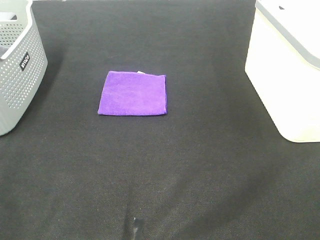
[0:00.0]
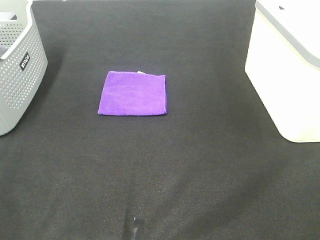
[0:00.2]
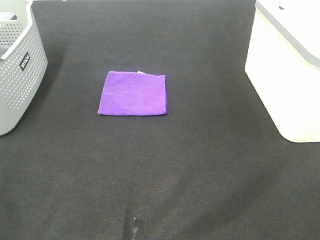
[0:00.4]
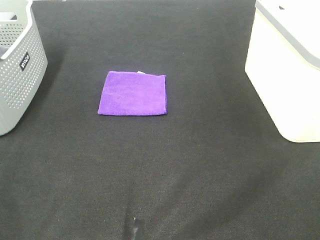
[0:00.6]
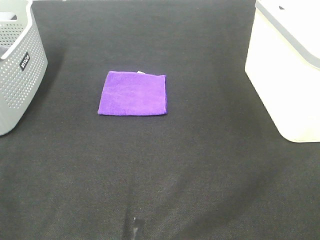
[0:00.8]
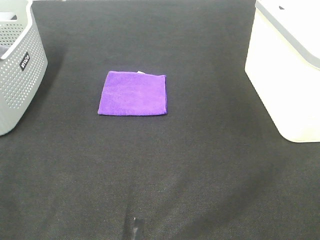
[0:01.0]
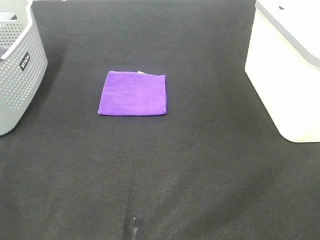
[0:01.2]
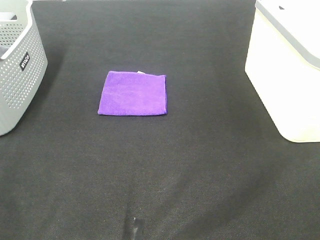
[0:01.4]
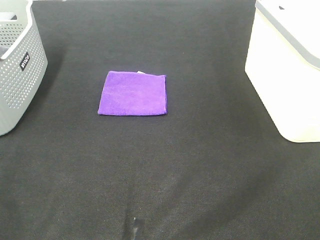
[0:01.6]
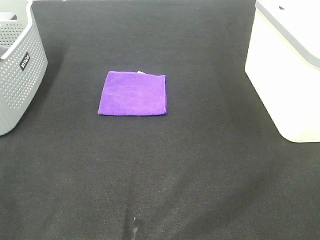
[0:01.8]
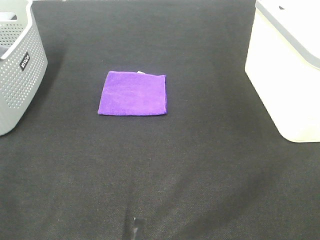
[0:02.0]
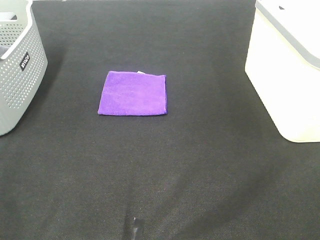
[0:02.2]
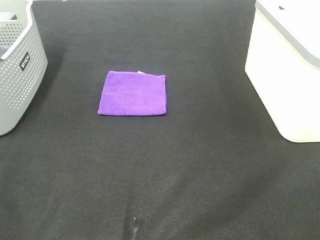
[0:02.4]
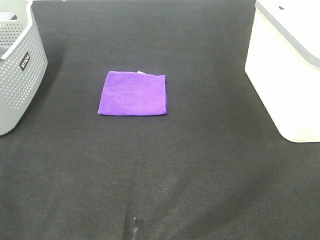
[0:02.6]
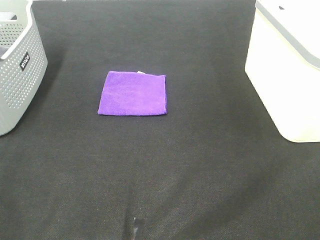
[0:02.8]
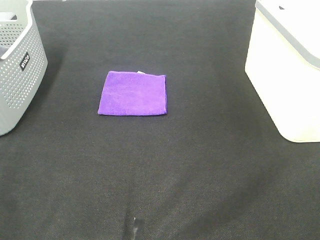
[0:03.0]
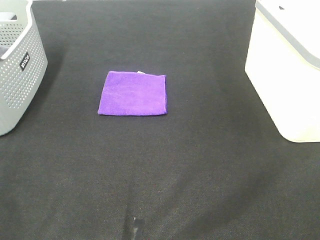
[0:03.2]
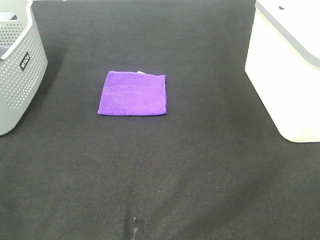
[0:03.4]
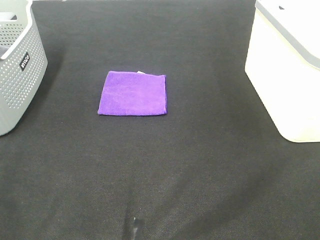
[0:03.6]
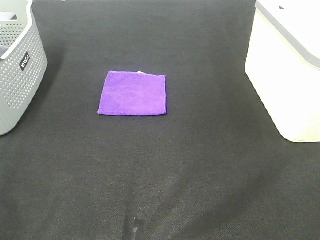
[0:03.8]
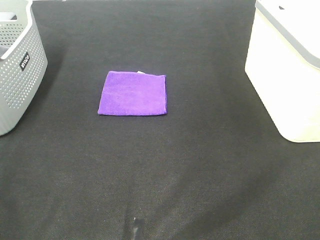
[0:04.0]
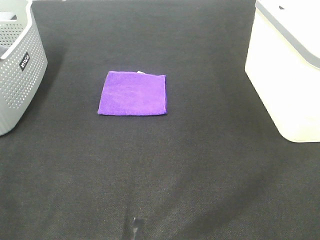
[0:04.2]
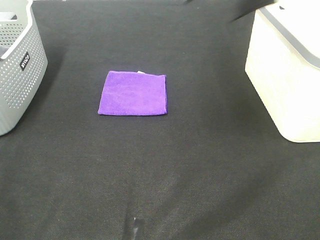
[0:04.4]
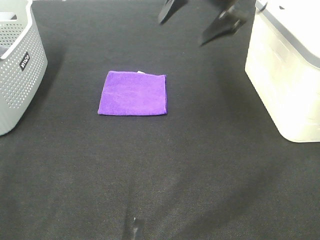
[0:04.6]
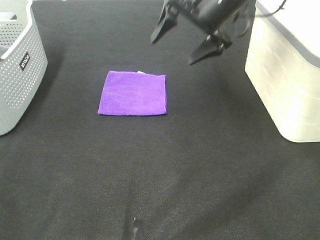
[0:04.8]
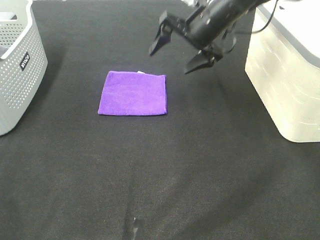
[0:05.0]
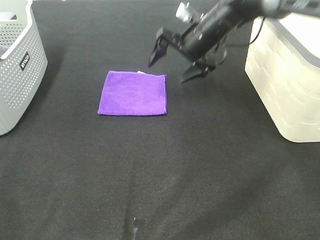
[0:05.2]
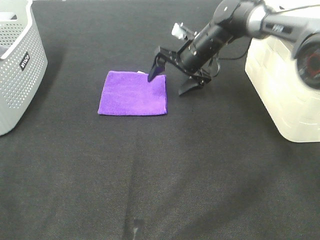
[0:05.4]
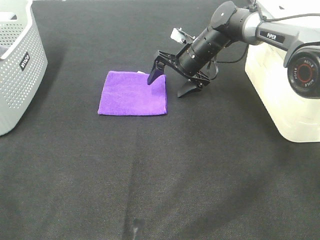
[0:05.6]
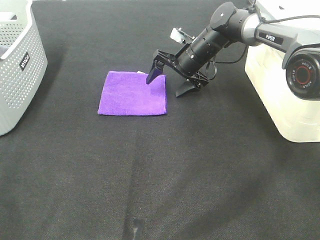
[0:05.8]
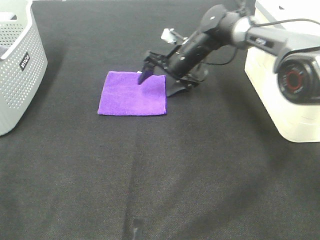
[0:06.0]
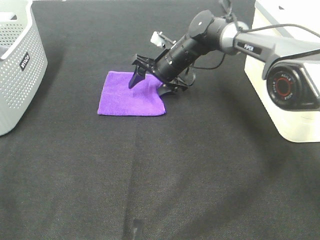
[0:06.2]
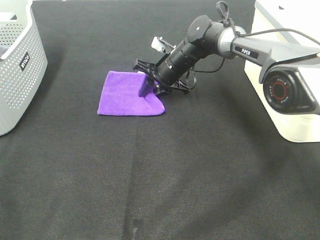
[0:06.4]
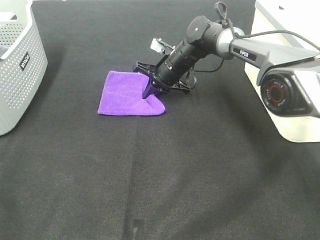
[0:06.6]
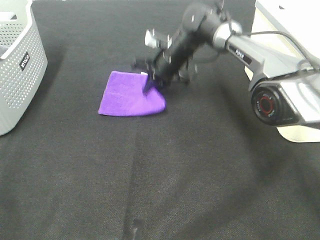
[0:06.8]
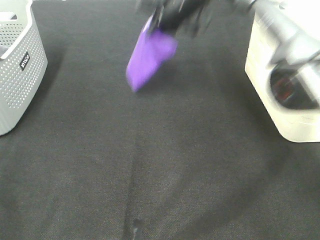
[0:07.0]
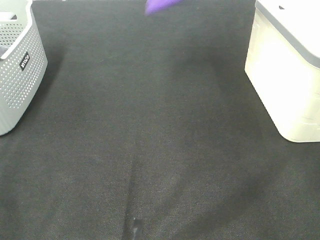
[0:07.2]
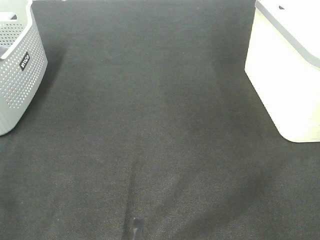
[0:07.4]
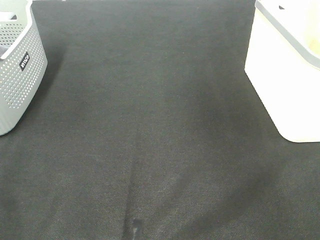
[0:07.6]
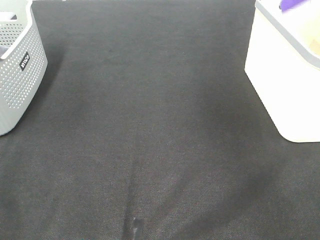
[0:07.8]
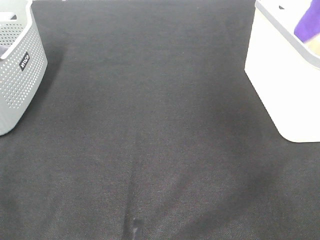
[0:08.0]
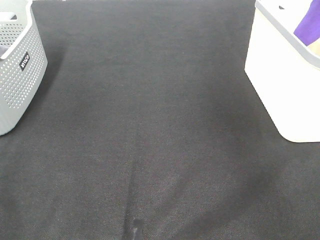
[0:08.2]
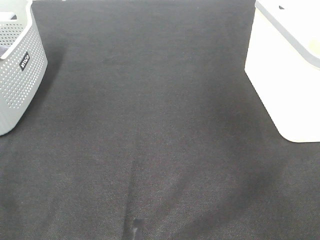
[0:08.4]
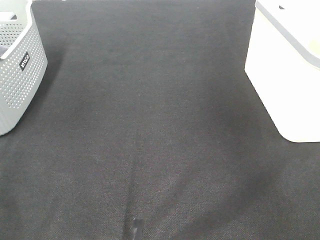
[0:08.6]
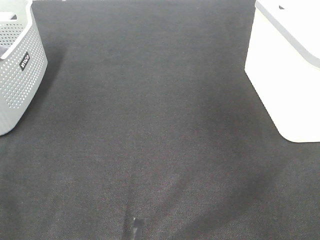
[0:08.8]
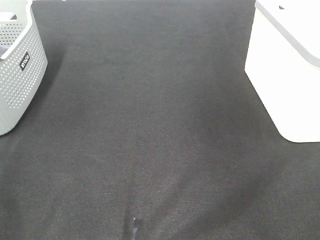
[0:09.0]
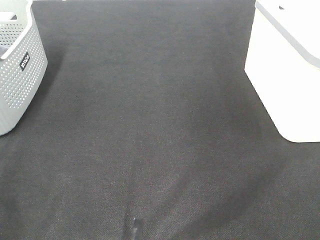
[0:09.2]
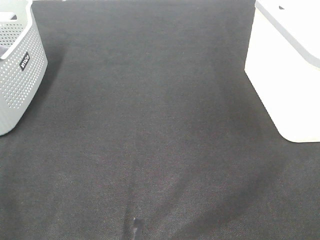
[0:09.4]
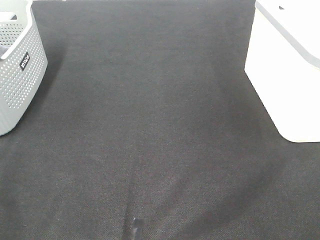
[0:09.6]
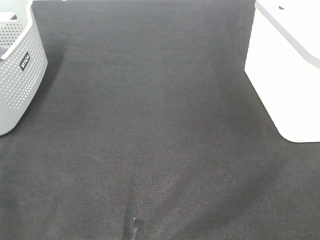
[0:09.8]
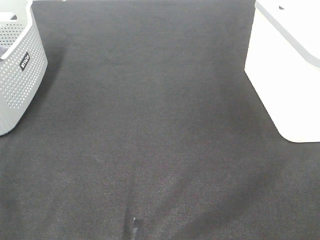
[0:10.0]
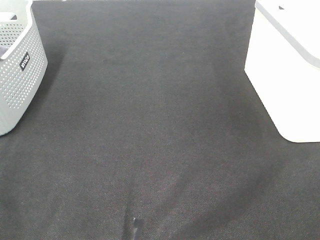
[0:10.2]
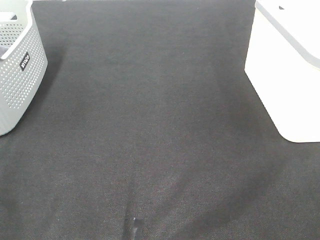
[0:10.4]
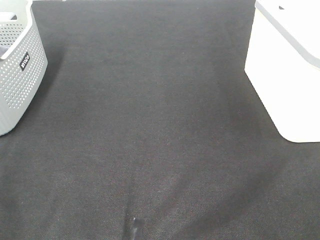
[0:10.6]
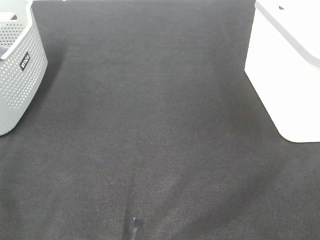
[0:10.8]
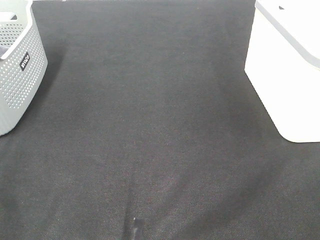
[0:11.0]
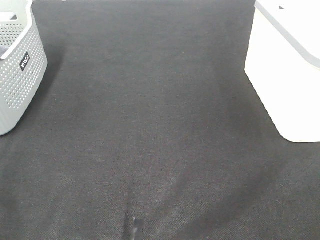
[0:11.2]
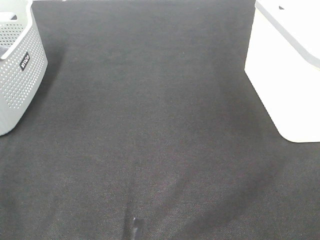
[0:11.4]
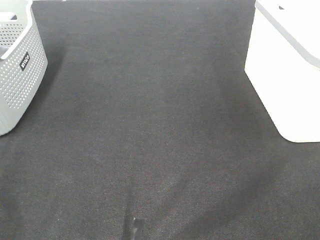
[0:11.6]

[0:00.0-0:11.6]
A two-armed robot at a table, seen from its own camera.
Step, 0:00.0 to 0:06.4: Right hand: grab the folded purple towel.
Step, 0:06.6 to 0:08.4: Right hand: place the purple towel in right basket.
0:00.0 to 0:02.8: Both grippers stay put.
0:02.8 to 0:04.4: The right gripper is displaced forward by some 40 cm.
0:04.4 to 0:05.8: The right gripper moves downward and forward, approximately 25 cm.
0:05.8 to 0:07.2: The right gripper moves upward, some 30 cm, and closes its fingers.
0:07.2 to 0:08.8: The right gripper heads to the right and backward, covering some 20 cm, and opens its fingers.

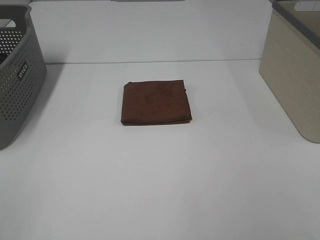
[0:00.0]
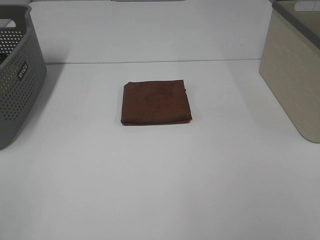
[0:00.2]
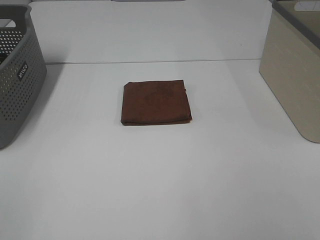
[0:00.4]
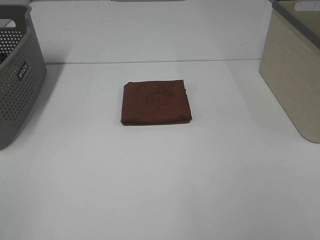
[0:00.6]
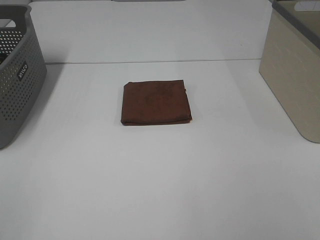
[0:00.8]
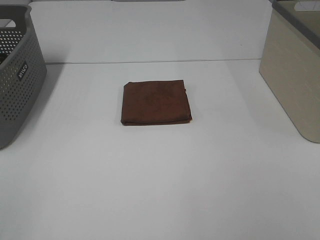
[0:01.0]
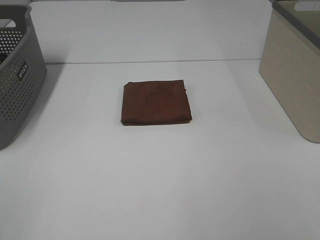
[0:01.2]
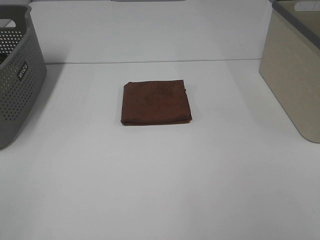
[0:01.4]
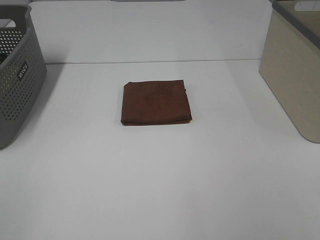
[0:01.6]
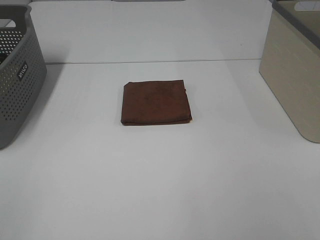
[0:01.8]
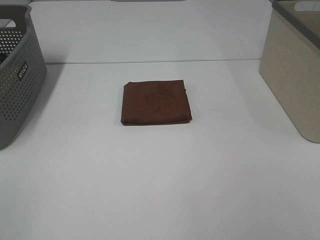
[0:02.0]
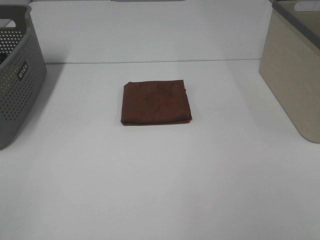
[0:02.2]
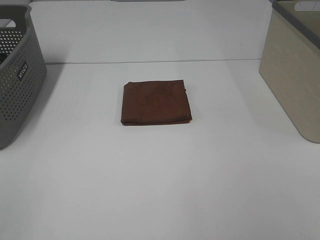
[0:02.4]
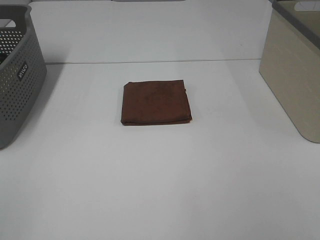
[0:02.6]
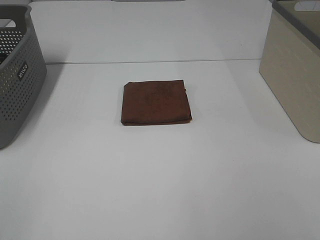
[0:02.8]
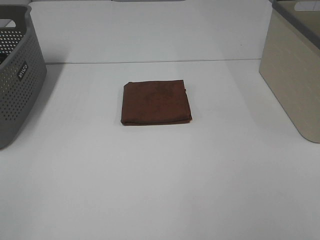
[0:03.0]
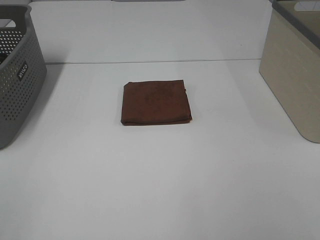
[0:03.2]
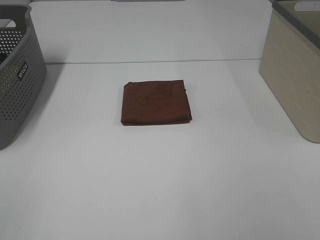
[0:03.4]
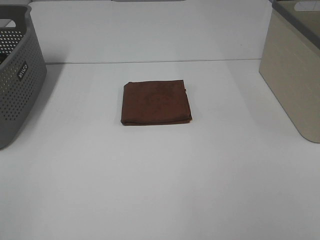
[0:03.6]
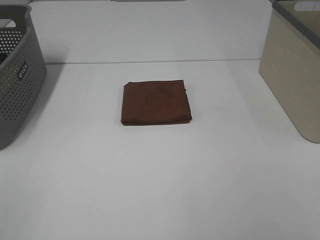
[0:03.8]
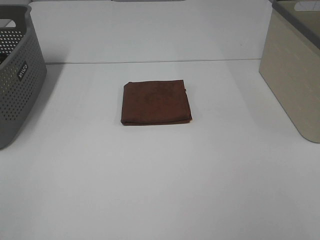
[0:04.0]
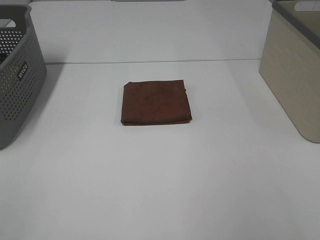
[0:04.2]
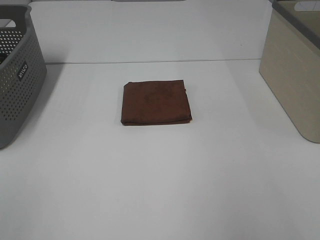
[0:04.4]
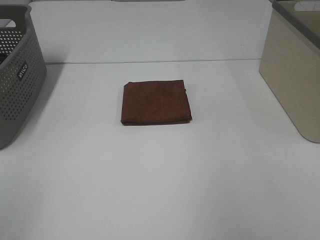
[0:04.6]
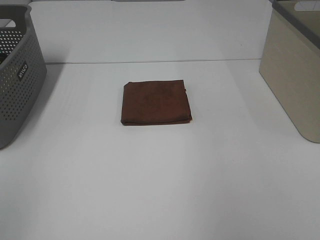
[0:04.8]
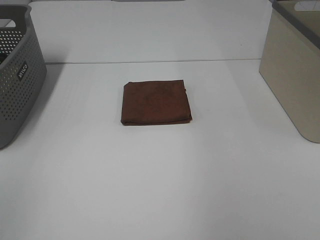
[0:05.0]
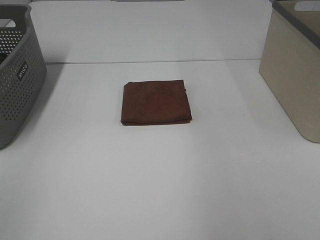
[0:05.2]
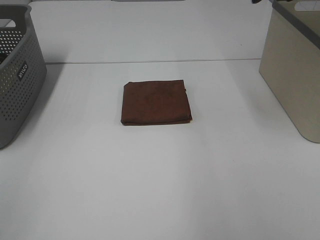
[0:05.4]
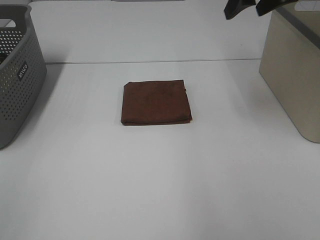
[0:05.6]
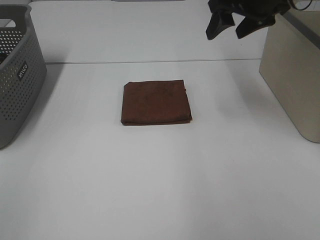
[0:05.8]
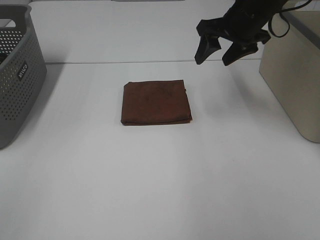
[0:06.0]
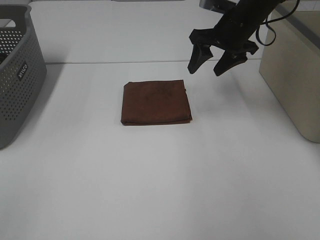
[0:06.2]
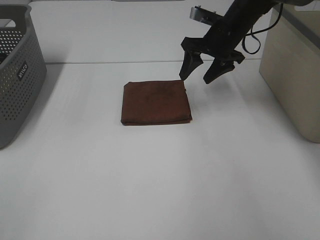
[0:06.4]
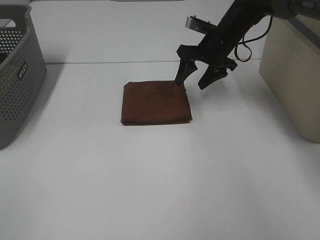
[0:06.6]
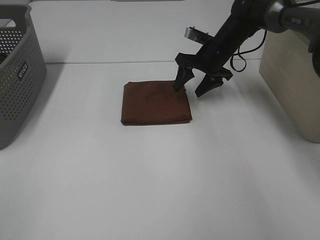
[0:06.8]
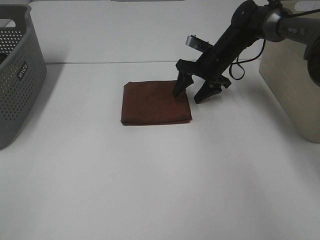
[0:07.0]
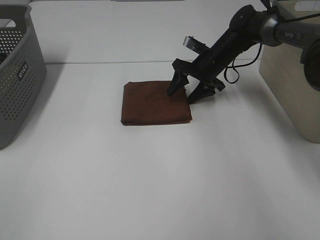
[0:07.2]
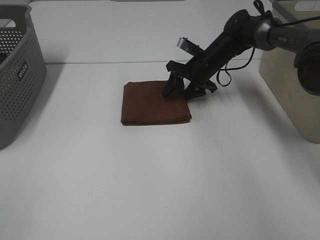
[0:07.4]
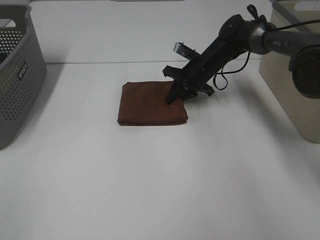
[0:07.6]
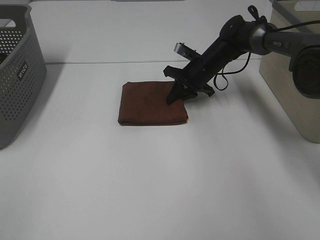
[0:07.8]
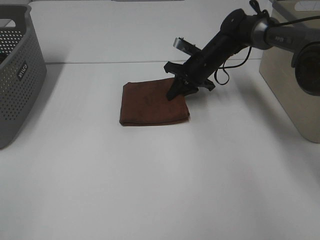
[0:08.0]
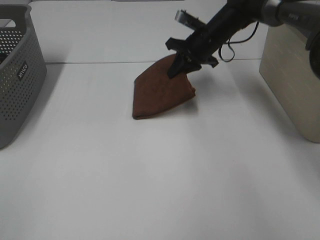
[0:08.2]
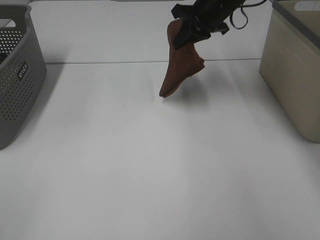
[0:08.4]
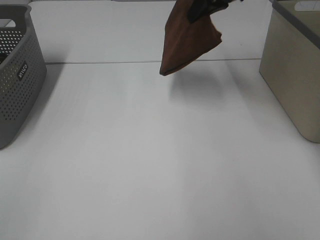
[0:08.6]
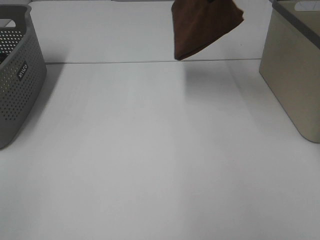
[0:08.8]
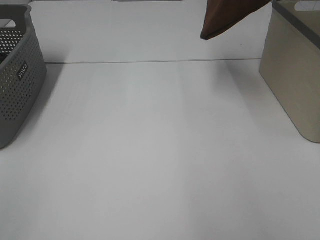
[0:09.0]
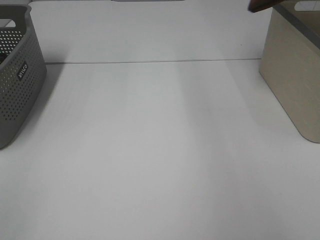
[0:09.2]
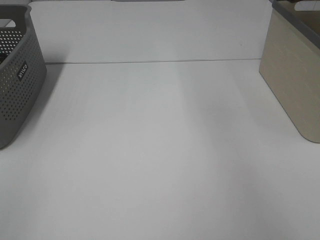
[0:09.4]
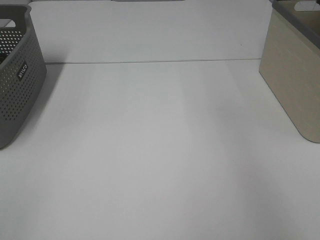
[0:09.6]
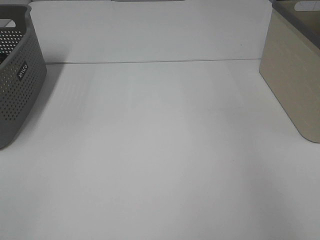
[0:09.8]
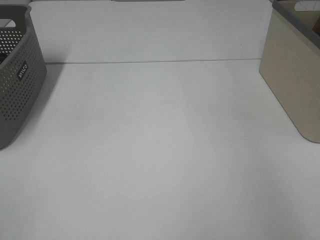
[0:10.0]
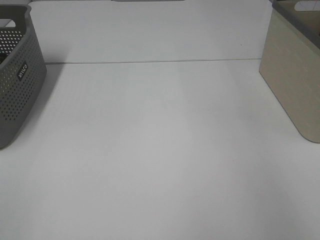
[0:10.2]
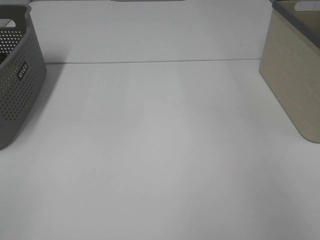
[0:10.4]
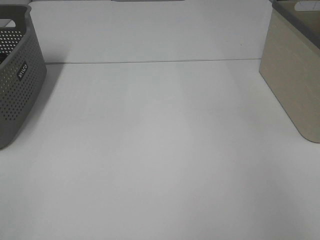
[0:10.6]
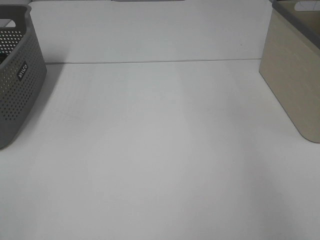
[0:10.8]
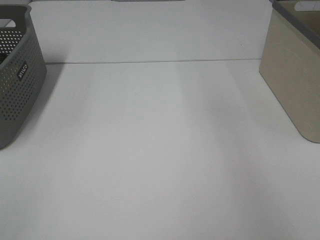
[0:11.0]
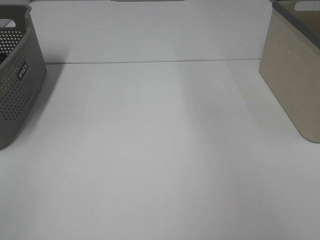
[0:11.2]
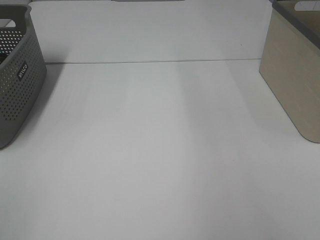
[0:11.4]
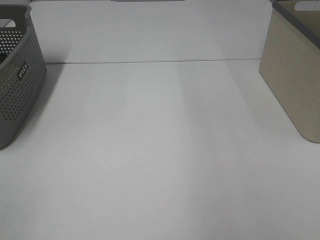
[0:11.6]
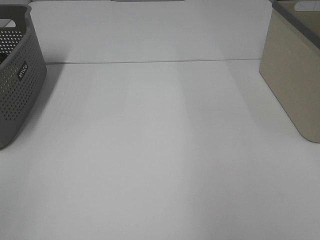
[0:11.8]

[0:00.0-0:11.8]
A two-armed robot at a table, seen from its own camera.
Step, 0:00.0 to 0:07.6: Right hand: grab the folded brown towel.
Step, 0:07.8 to 0:10.4: Right hand: place the brown towel in right basket.
0:00.0 to 0:03.0: Both grippers stay put.
0:04.4 to 0:06.0: The right gripper travels forward and to the left by about 35 cm.
0:06.0 to 0:07.4: The right gripper shifts roughly 15 cm downward and forward.
0:07.4 to 0:08.8: The right gripper heads upward, covering roughly 25 cm, and closes.
0:08.8 to 0:10.4: The right gripper shifts roughly 25 cm to the right, and opens up.
